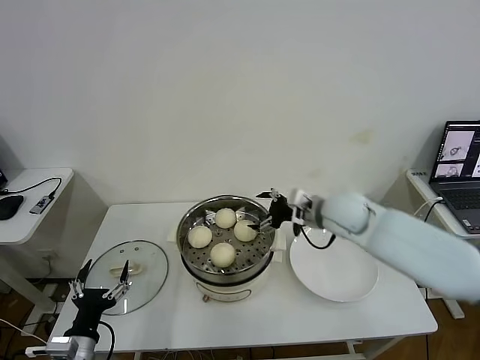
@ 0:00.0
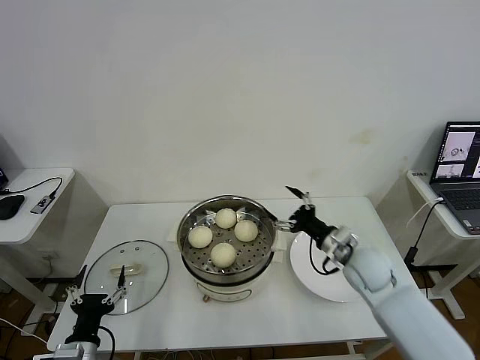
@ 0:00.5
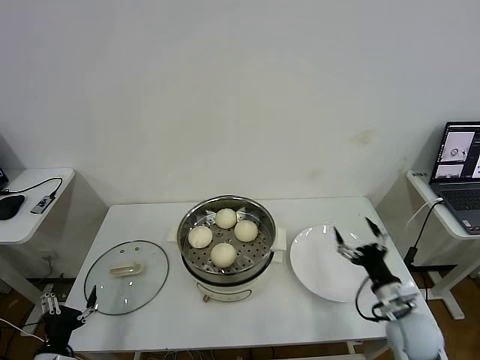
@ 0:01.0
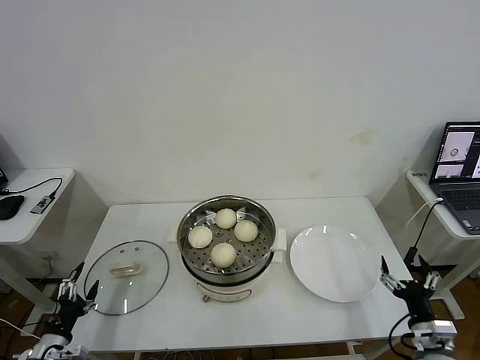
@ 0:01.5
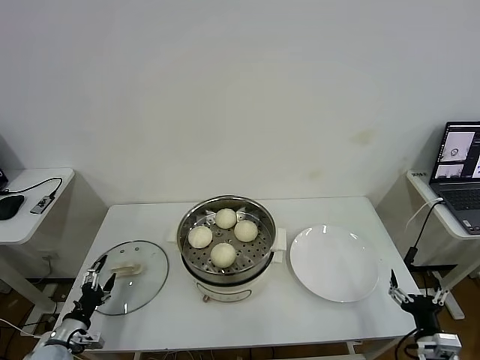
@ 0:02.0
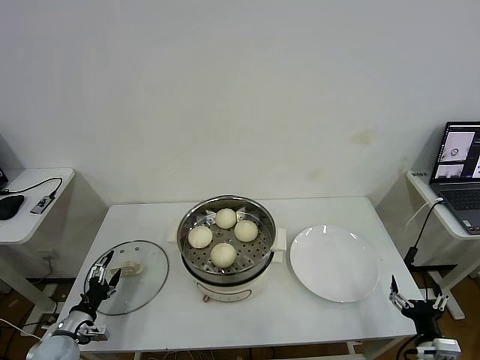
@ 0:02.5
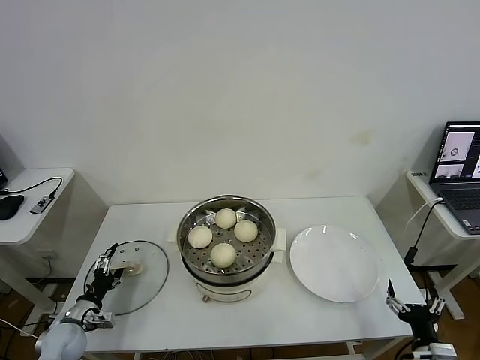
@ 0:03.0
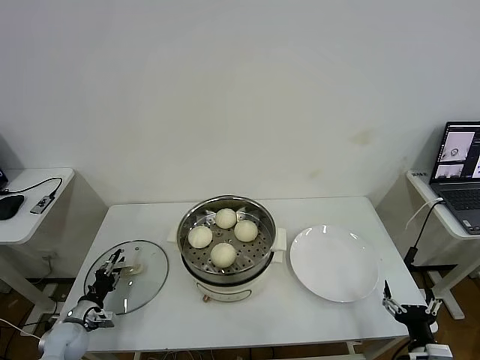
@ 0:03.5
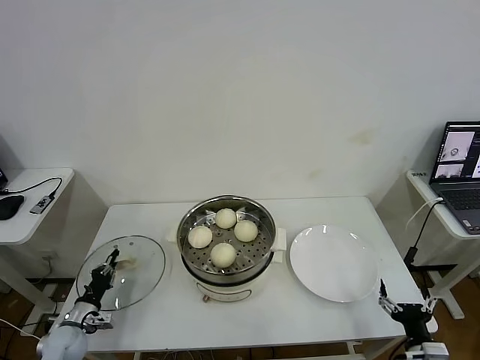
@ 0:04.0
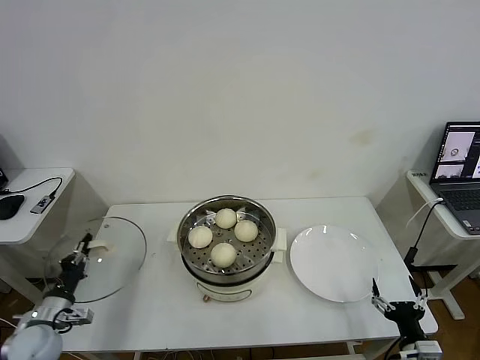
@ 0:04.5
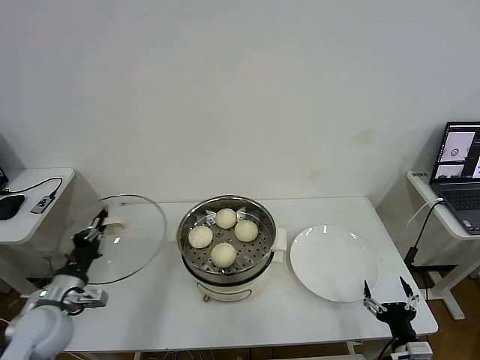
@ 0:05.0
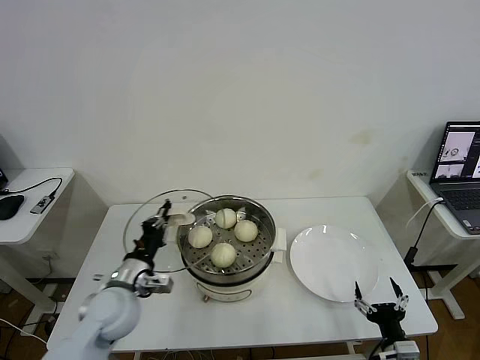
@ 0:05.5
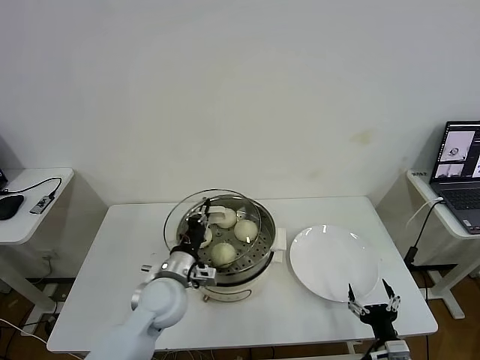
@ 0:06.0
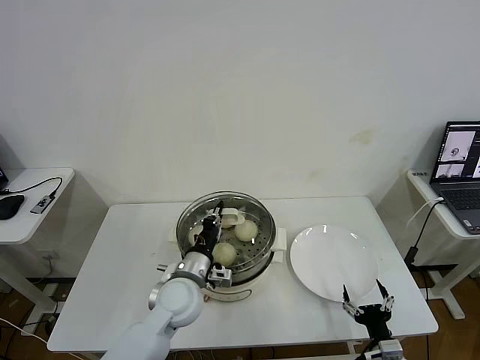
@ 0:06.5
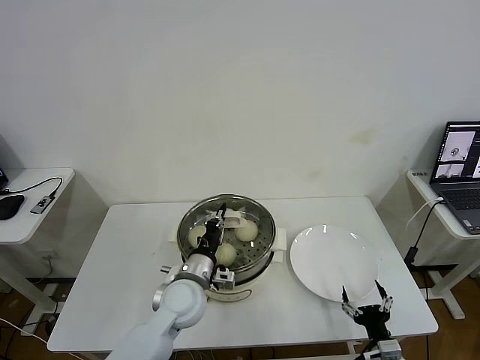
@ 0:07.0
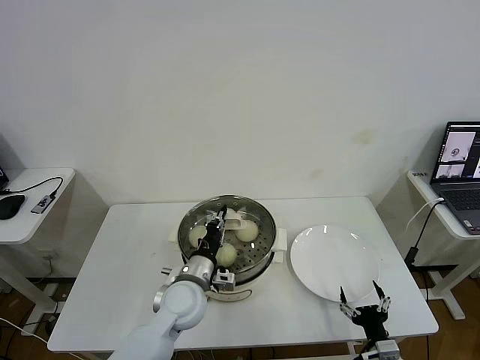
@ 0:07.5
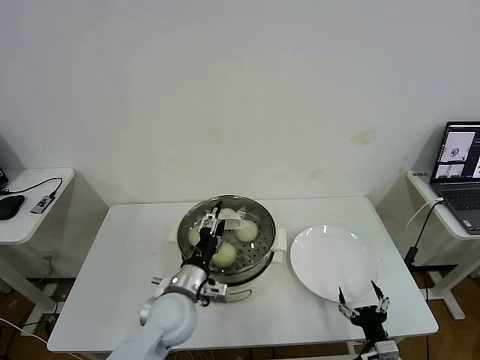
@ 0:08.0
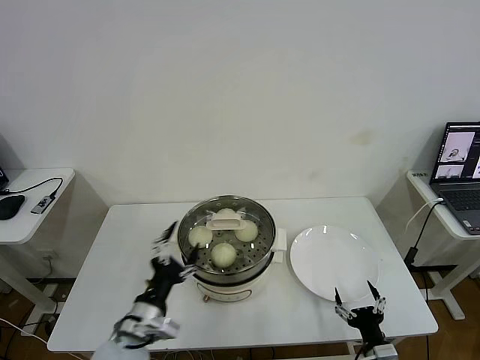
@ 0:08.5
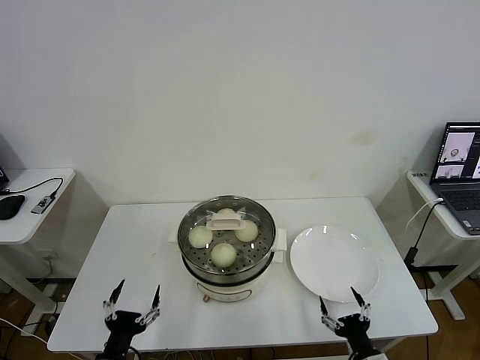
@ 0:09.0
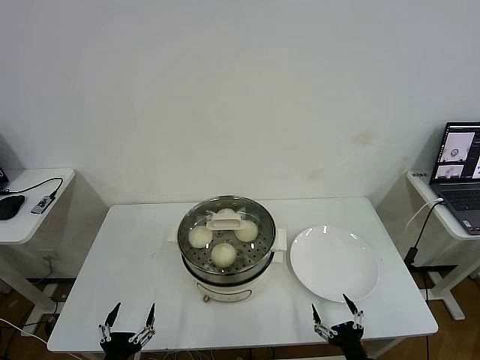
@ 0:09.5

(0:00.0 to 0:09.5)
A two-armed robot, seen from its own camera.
Task of the whole recording: take steamed baozi put them in steamer then cover it.
Step, 0:00.0 - 0:04.0: Grasp the pot lid with left gripper.
Step, 0:04.5 - 0:08.0: Place the pot lid on the steamer with left gripper.
0:00.0 - 0:02.0: The right gripper shifts roughly 40 cm backward, downward and to the right. The left gripper moves to the left, downward and forward, about 15 cm.
0:02.0 - 0:04.0: The left gripper moves forward, roughly 5 cm, and closes its fingers.
0:04.0 - 0:05.5: The left gripper goes approximately 25 cm upward and to the right.
0:05.5 - 0:07.5: The left gripper shifts about 15 cm to the right.
0:07.5 - 0:09.5: The left gripper heads backward and to the left, covering roughly 30 cm, and opens its fingers. Meanwhile the right gripper changes place by about 5 cm.
